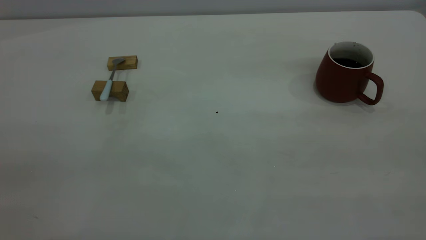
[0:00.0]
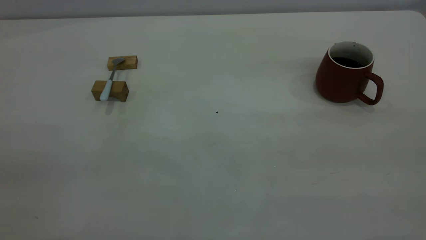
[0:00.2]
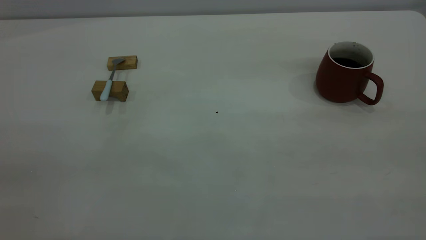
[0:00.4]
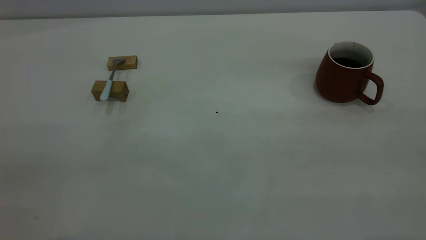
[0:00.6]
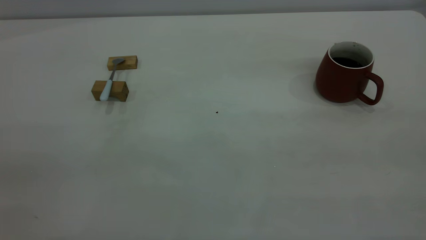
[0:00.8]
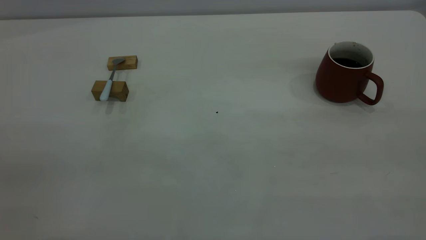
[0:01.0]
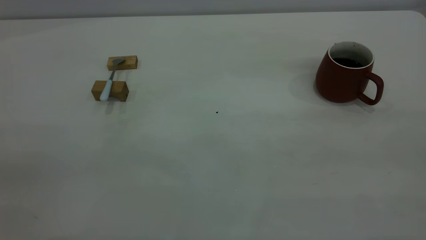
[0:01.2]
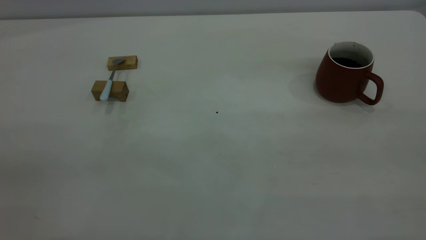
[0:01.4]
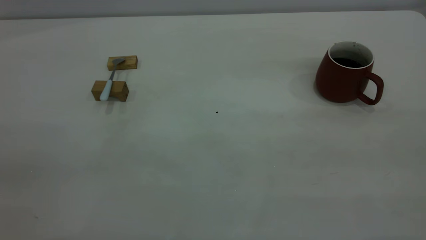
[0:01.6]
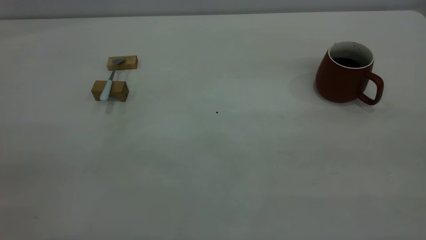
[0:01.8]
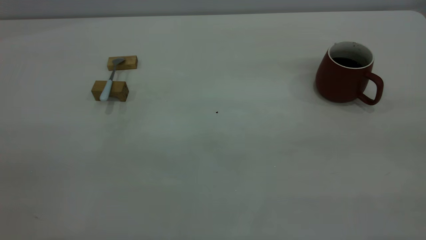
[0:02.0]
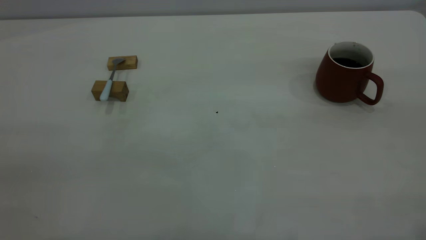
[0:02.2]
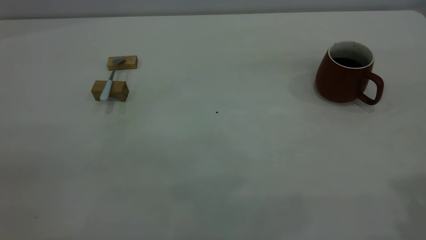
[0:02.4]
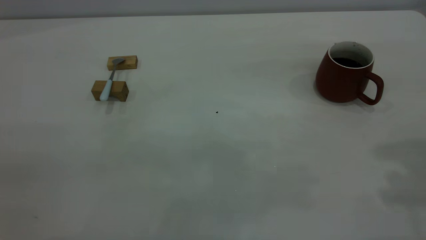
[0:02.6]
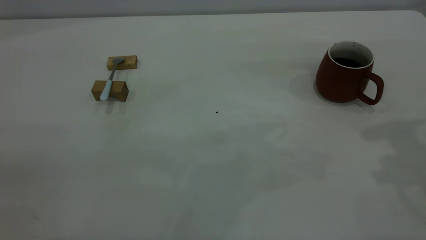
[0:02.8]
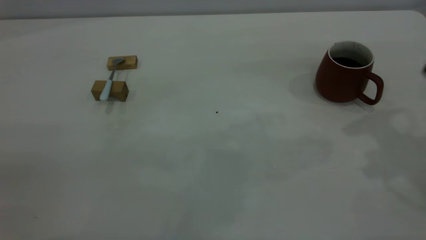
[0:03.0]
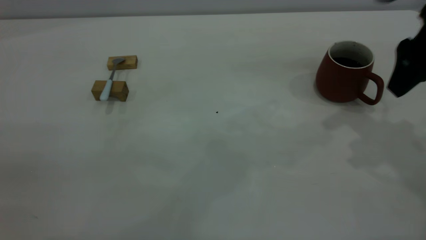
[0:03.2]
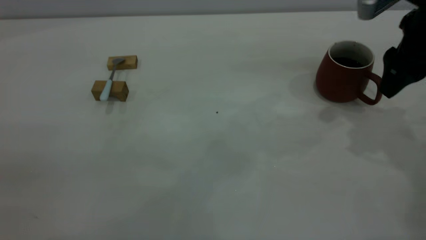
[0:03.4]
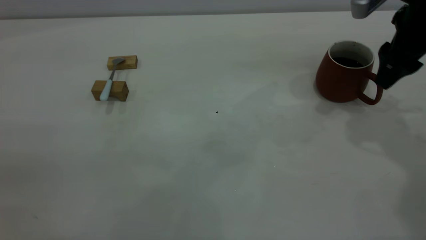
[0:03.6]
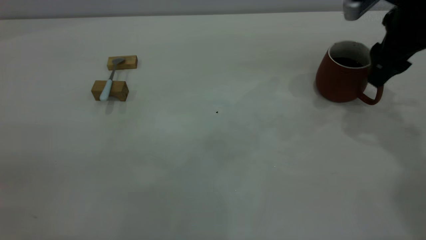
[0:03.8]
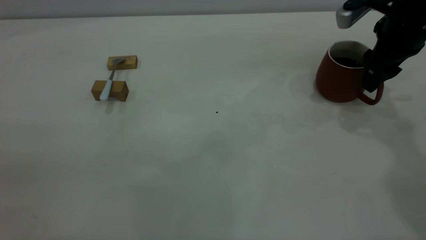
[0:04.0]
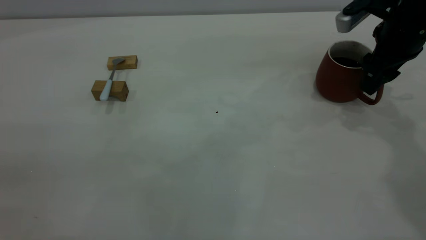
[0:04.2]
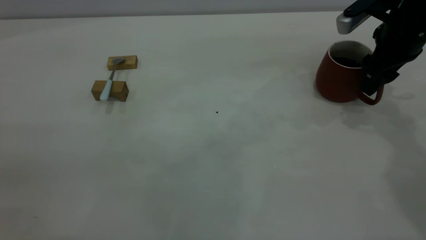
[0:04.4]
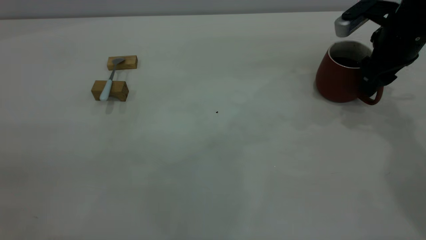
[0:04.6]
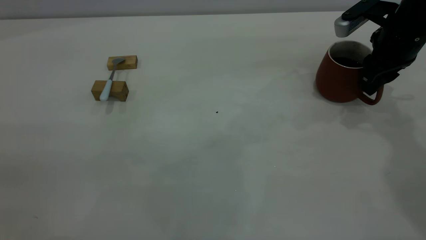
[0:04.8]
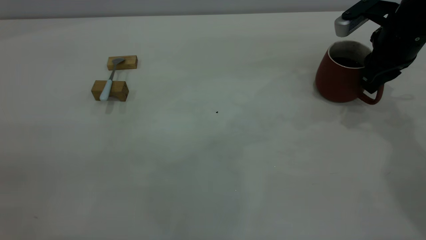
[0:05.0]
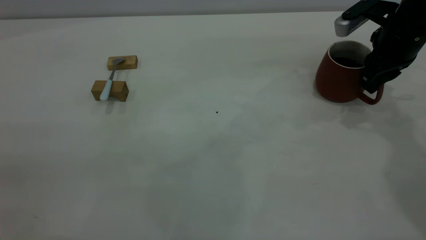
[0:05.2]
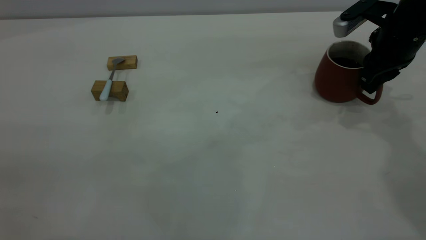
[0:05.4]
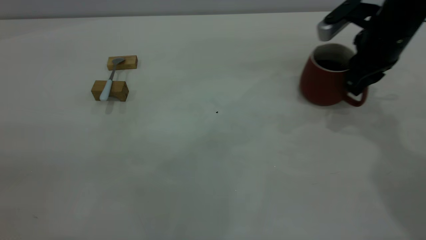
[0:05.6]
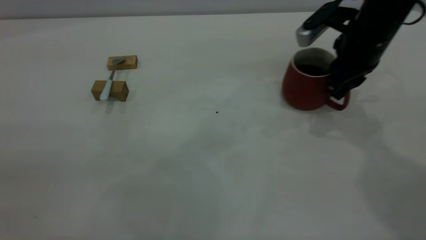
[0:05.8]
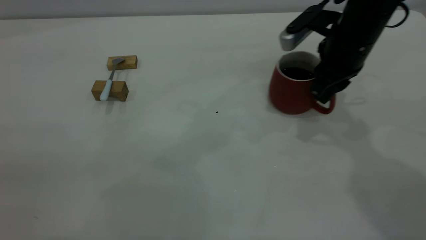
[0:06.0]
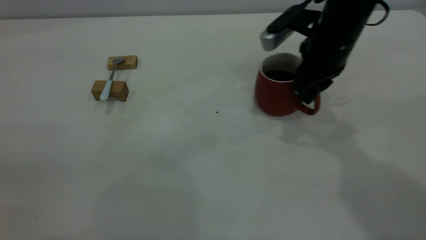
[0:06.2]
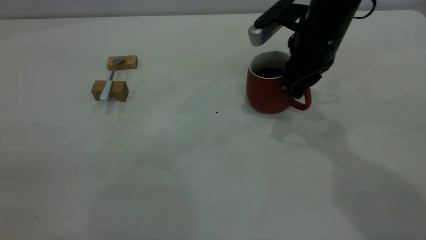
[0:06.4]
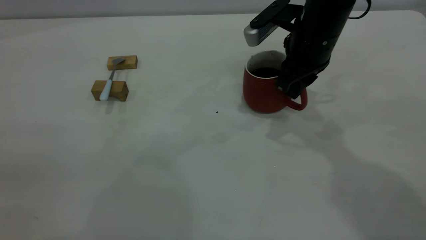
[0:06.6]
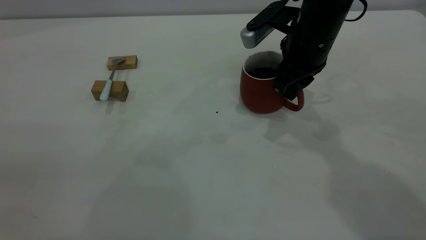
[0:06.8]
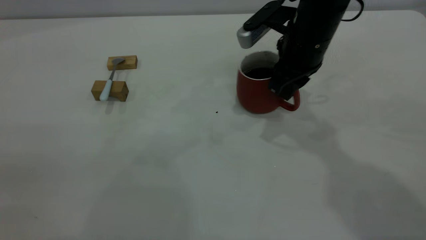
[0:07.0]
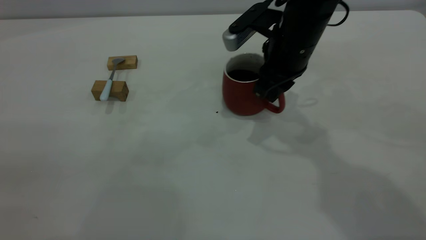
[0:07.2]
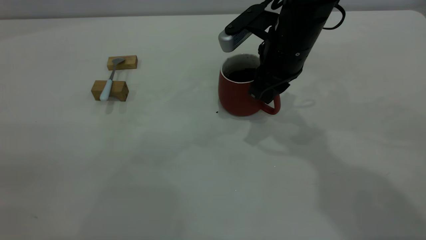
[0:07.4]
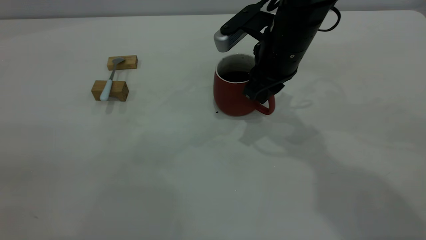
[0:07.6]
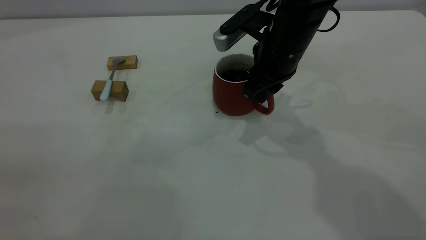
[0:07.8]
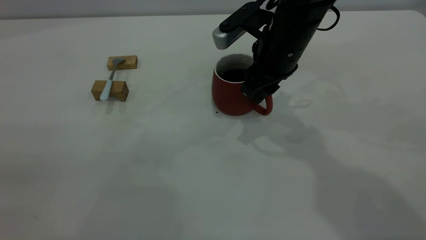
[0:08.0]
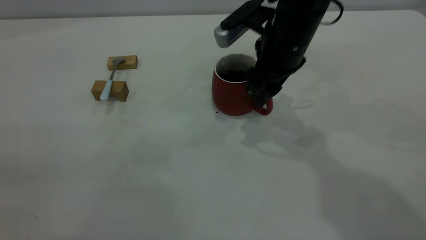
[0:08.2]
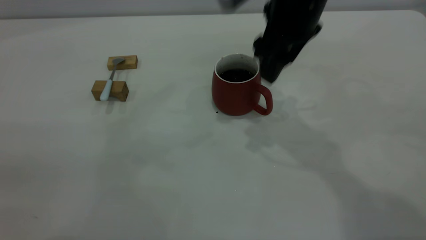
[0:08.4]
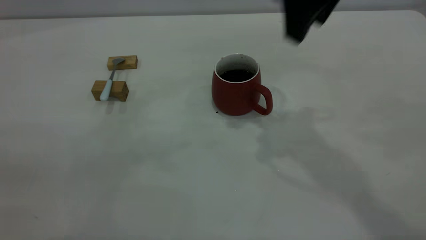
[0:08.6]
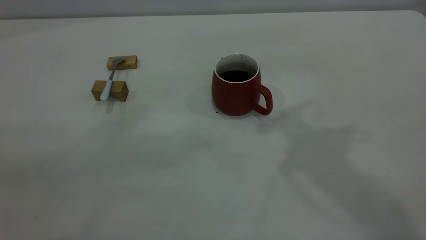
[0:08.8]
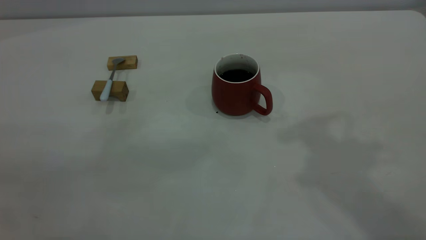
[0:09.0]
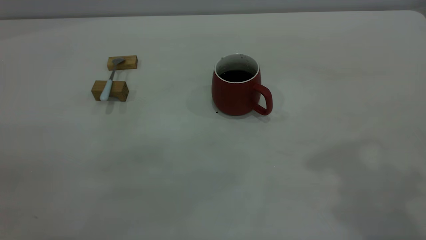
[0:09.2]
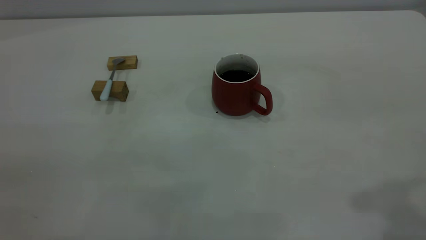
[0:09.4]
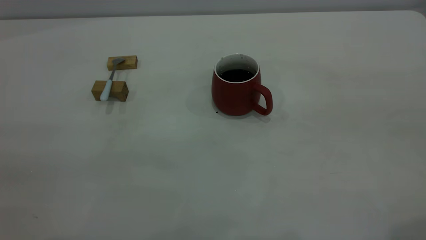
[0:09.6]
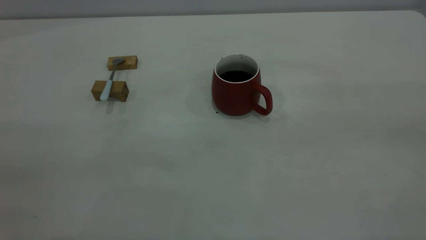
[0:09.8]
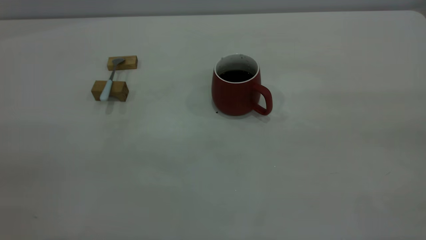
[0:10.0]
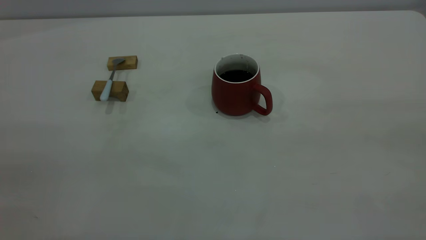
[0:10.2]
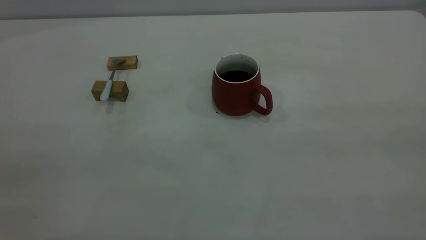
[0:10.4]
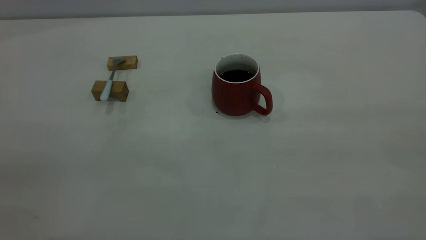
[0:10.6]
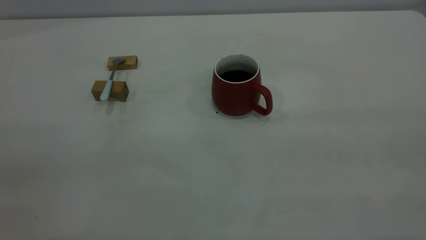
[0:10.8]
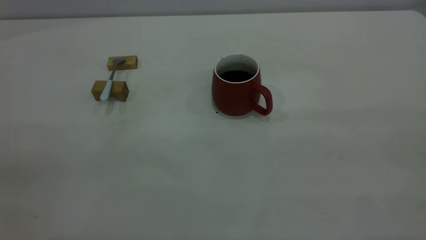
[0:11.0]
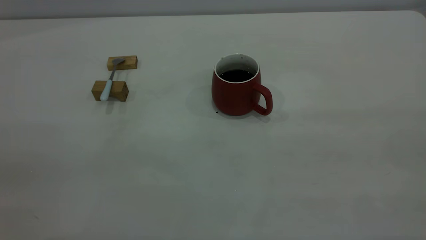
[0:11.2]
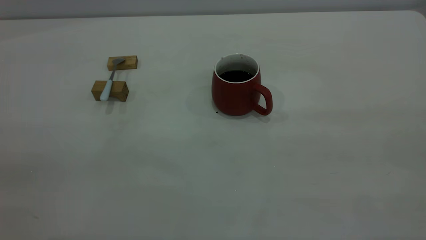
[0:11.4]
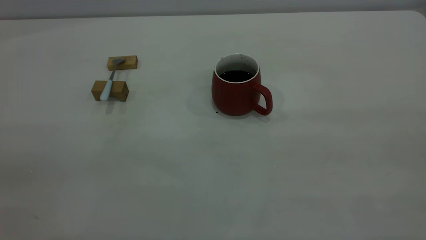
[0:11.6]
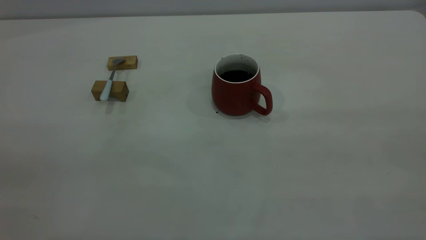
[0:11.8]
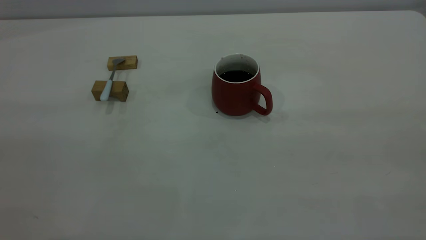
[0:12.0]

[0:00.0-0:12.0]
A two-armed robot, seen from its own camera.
Step, 0:00.0 to 0:08.4: Move the cup with coffee to the center of view.
0:00.0 to 0:01.6: The two grippers keep their place.
0:03.0 to 0:04.4: The right gripper is displaced forward and downward by some 15 cm.
0:04.4 to 0:06.0: The right gripper heads to the left, covering approximately 10 cm, and closes up.
0:06.0 to 0:07.6: The right gripper moves to the left, about 10 cm.
0:07.6 to 0:09.0: The right gripper goes approximately 30 cm upward and backward, and opens.

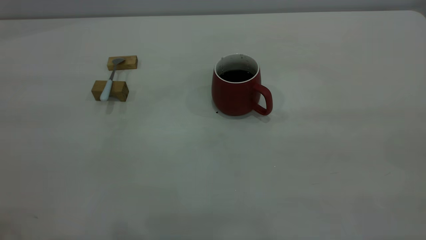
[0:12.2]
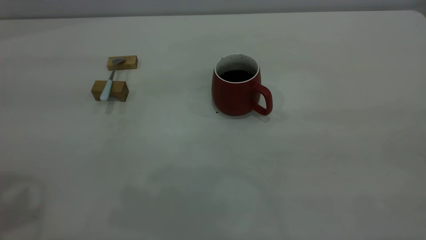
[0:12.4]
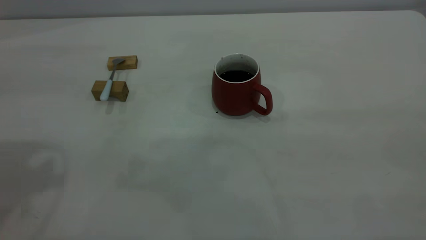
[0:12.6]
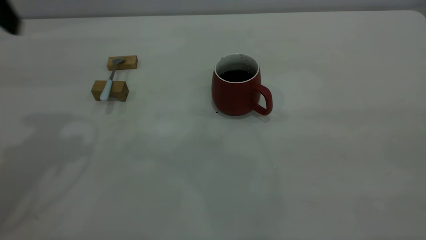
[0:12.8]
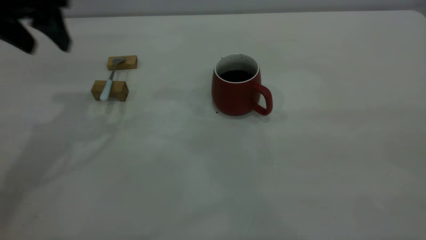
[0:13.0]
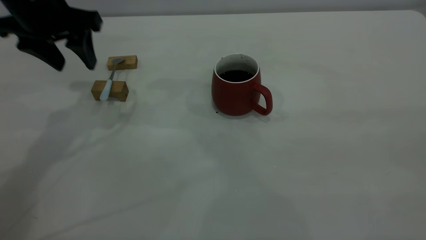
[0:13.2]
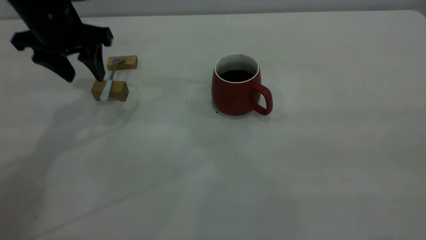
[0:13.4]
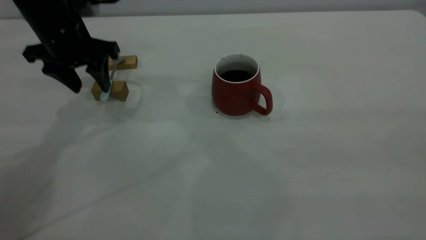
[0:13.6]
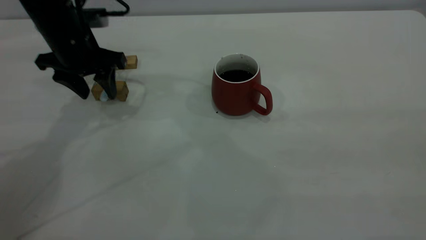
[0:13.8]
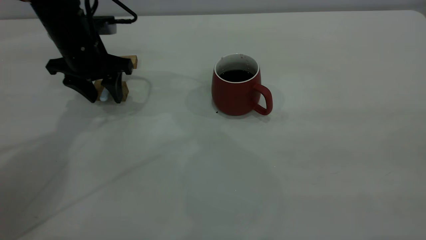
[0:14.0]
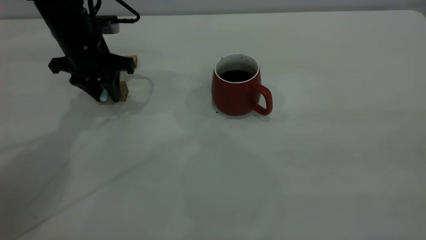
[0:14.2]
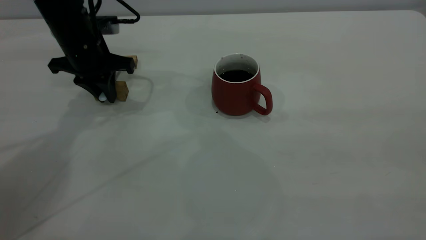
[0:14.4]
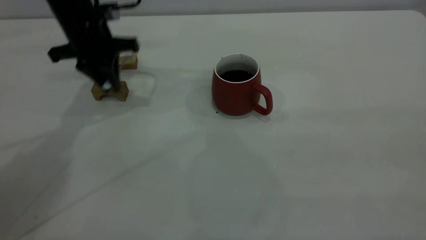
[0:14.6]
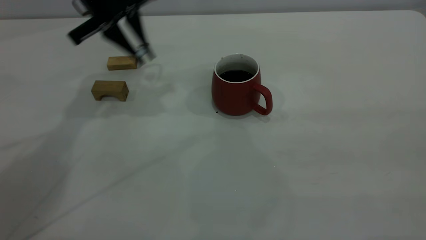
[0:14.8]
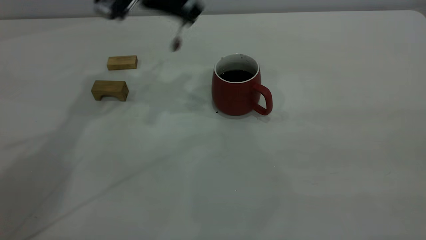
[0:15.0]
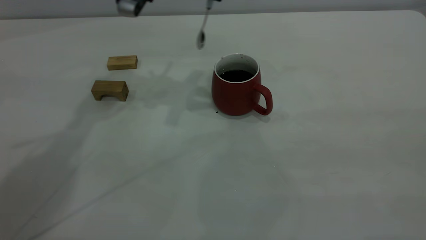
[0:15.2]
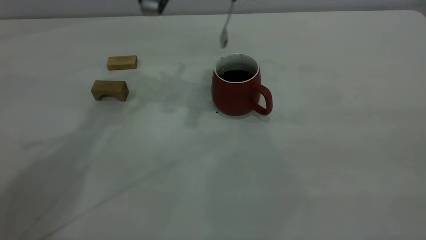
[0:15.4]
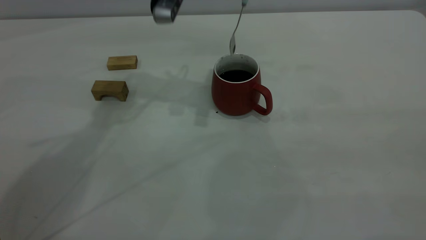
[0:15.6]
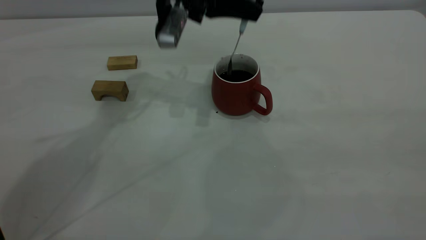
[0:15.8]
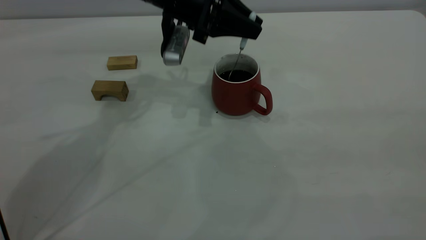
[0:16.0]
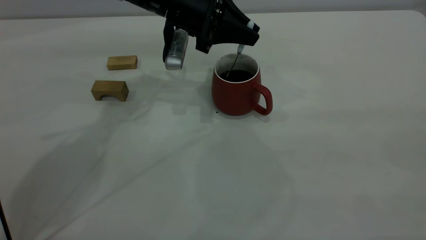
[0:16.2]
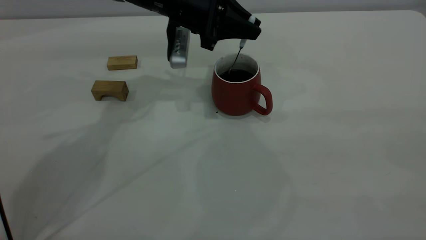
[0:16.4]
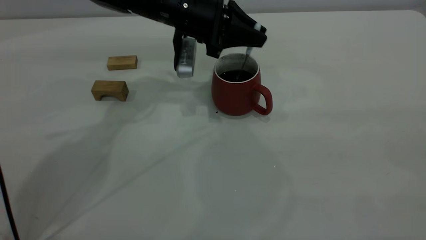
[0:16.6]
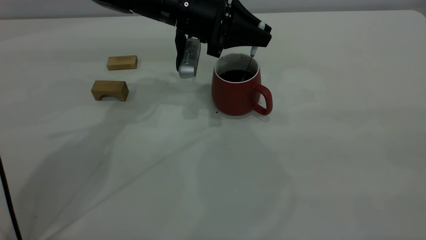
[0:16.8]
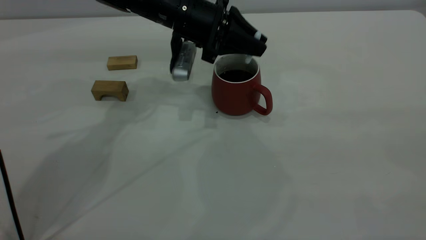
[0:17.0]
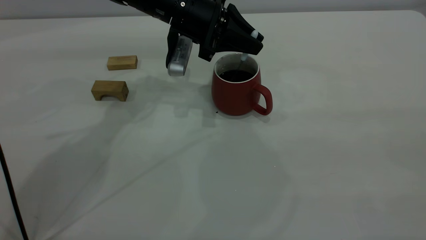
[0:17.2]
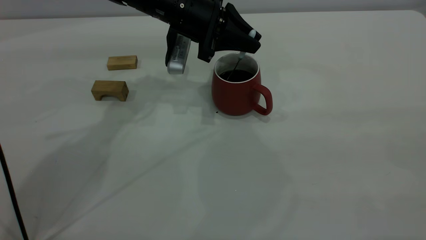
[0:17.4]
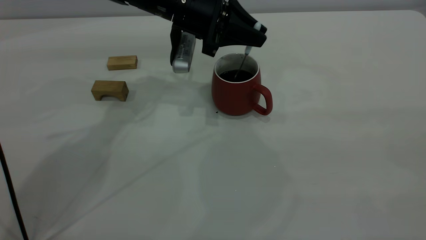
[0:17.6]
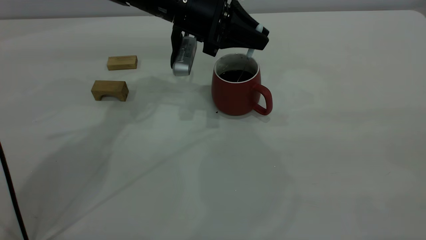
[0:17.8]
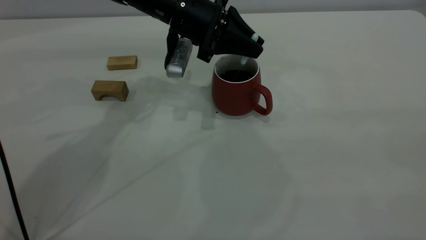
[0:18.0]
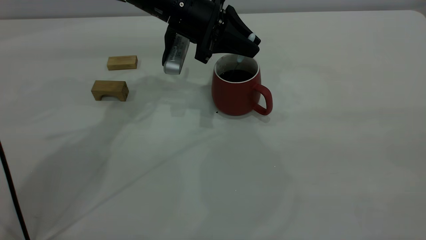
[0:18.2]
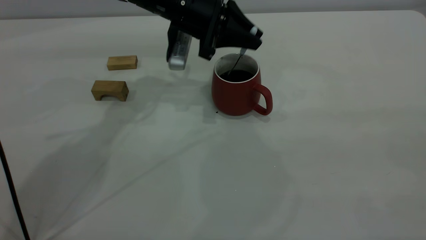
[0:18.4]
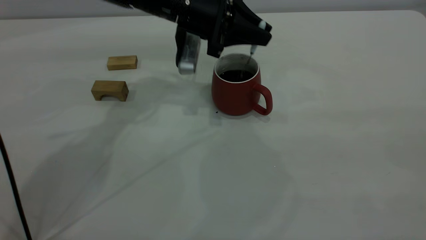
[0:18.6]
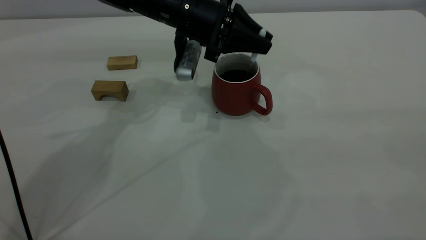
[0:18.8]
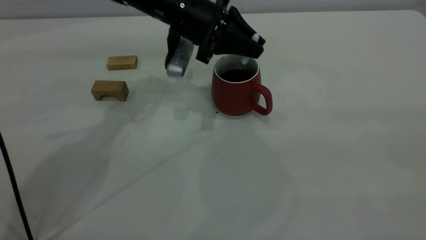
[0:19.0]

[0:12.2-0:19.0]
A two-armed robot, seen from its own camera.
Step, 0:12.2 to 0:14.6: Pick up the spoon.
0:12.2 to 0:13.6: The left gripper shifts some 35 cm forward and downward.
0:13.6 to 0:15.0: The left gripper heads to the right and upward, covering approximately 15 cm, and closes up.
0:15.0 to 0:16.2: The left gripper goes about 10 cm downward and to the right.
0:16.2 to 0:19.0: The grippers stay close to where they were, moving slightly.
